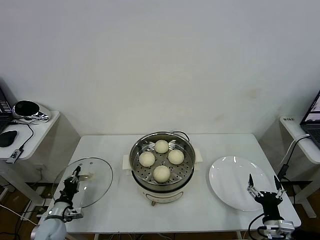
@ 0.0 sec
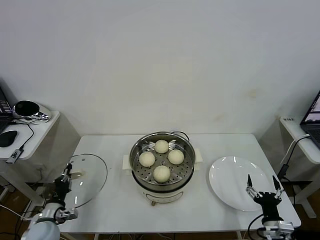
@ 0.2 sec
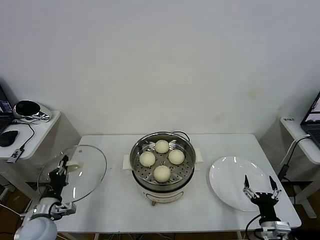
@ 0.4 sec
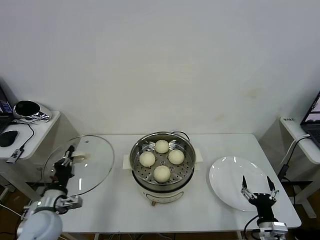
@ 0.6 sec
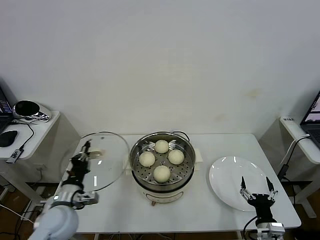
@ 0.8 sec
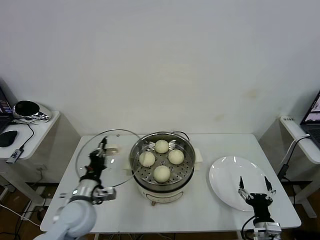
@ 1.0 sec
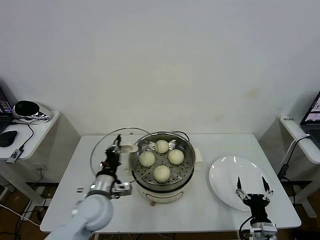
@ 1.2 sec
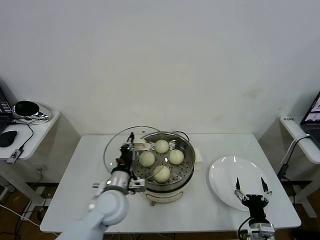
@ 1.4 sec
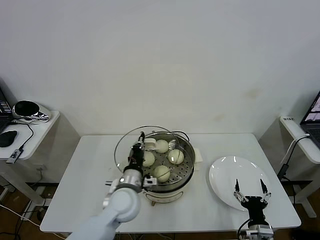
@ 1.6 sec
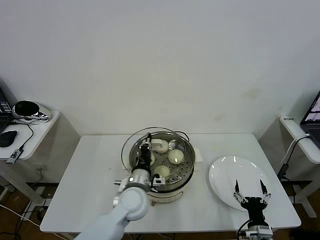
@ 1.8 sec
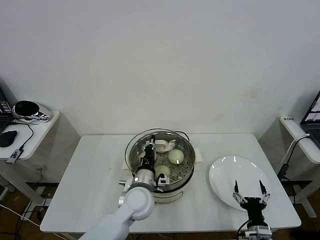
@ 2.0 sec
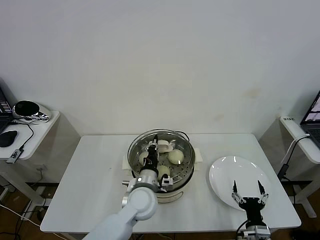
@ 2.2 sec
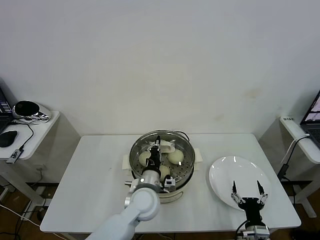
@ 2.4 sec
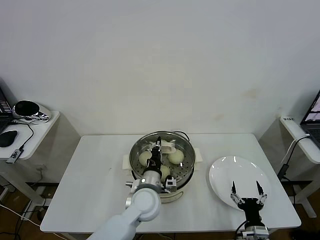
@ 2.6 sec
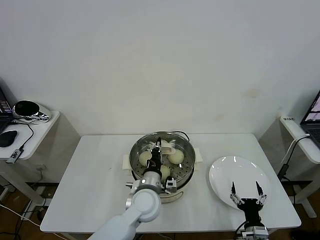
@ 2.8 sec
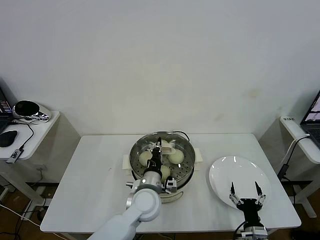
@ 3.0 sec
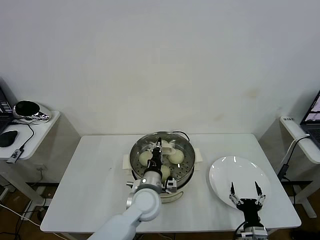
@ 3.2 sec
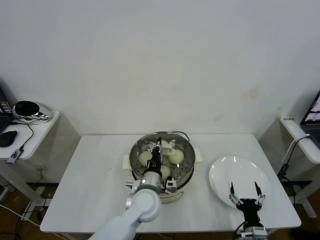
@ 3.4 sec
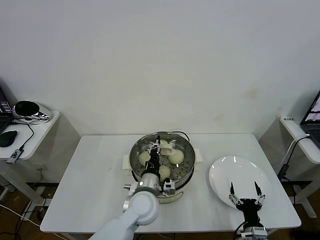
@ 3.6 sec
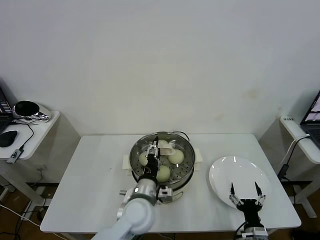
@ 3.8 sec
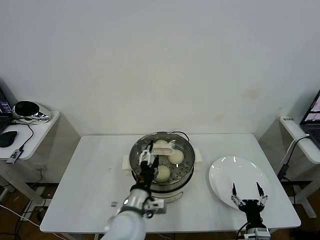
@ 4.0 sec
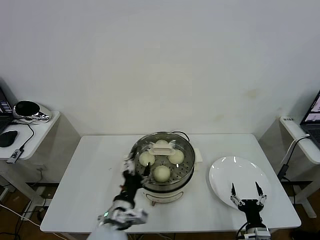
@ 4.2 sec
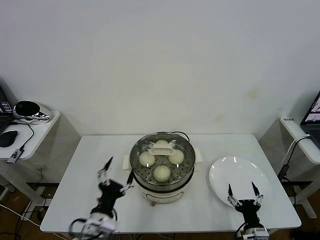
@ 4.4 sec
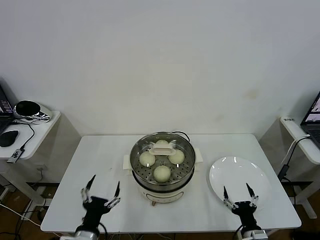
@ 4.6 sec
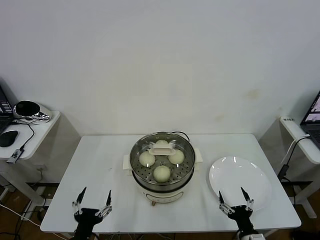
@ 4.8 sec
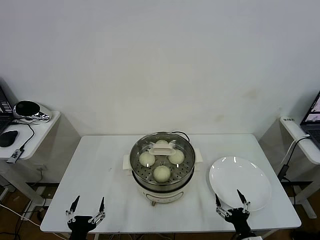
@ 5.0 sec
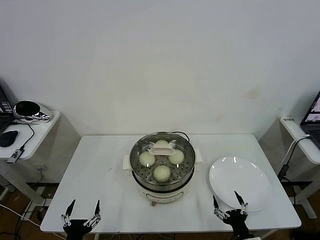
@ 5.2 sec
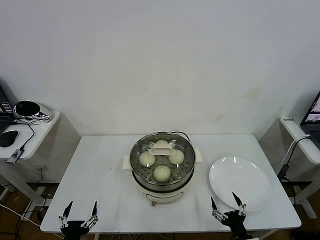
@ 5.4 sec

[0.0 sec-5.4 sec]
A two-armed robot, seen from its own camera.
Task of the whole recording: take steamed baozi put them in steamer then cover it.
Step, 0.0 sec to 3.8 sec: Place the pot lid on the steamer with left gripper.
0.0 sec to 1.4 sec: The left gripper is displaced to the right and upward by approximately 30 cm.
1.4 sec to 2.8 sec: The left gripper travels to the right by roughly 10 cm.
2.8 sec to 4.0 sec: The left gripper travels backward by approximately 5 cm, and opens its fingers.
4.0 sec to 5.4 sec: The left gripper moves to the left, backward and downward, approximately 30 cm.
